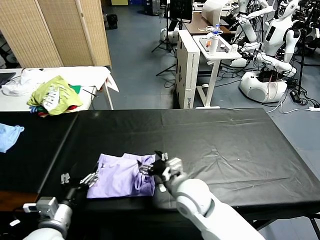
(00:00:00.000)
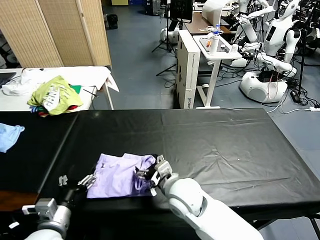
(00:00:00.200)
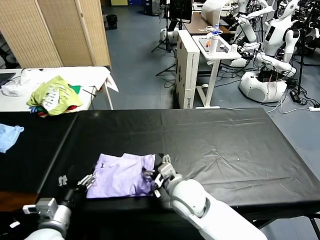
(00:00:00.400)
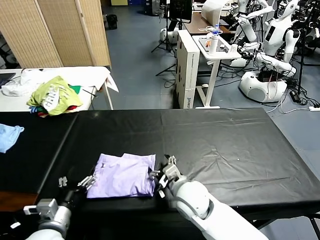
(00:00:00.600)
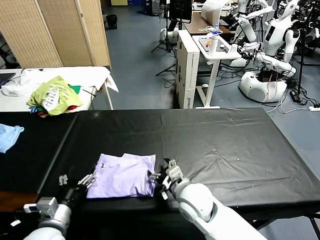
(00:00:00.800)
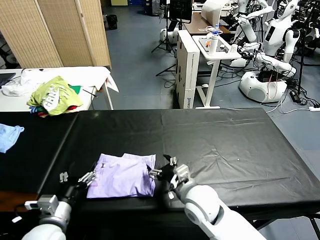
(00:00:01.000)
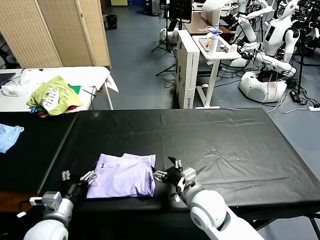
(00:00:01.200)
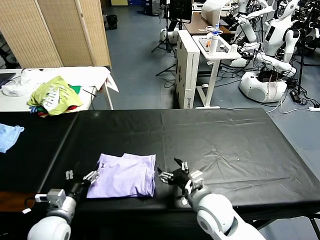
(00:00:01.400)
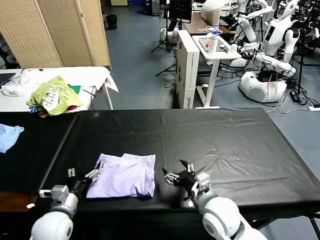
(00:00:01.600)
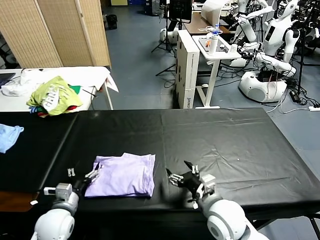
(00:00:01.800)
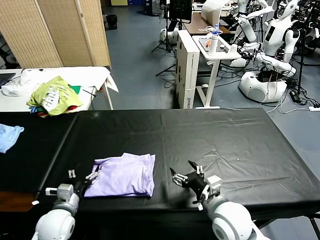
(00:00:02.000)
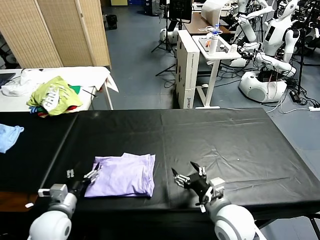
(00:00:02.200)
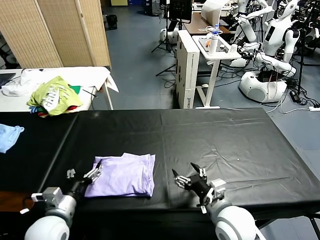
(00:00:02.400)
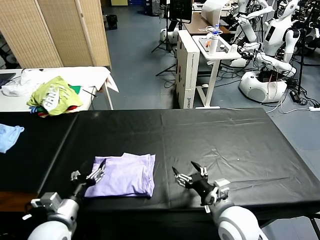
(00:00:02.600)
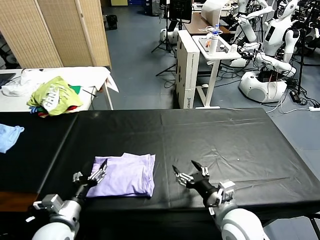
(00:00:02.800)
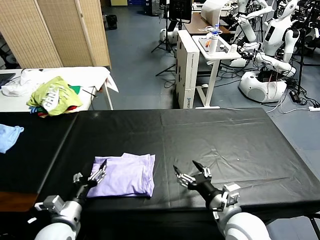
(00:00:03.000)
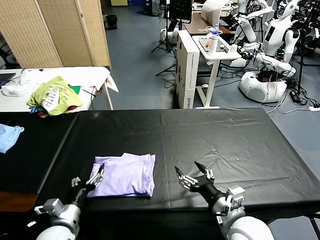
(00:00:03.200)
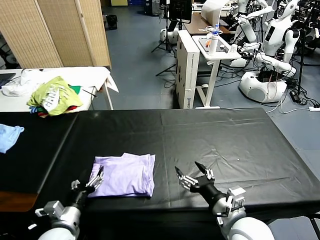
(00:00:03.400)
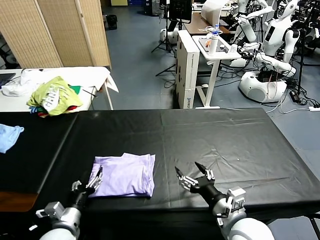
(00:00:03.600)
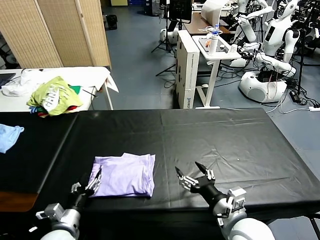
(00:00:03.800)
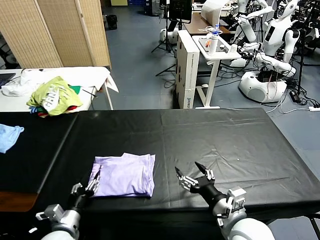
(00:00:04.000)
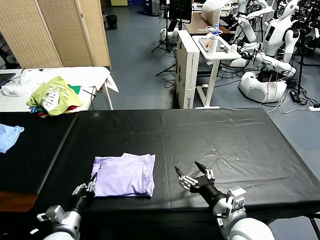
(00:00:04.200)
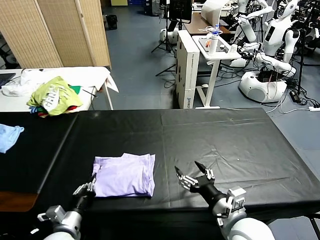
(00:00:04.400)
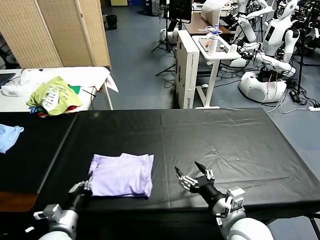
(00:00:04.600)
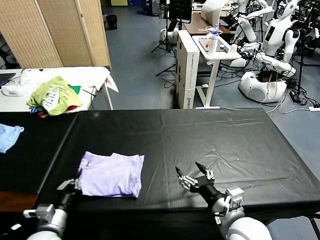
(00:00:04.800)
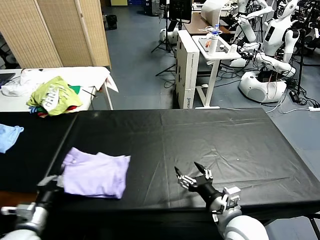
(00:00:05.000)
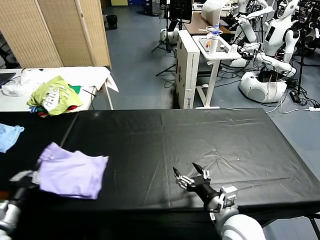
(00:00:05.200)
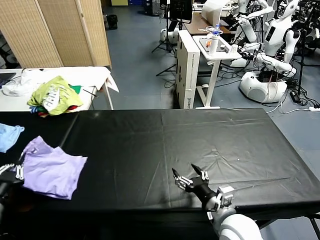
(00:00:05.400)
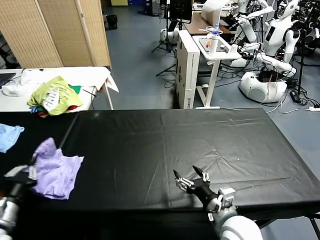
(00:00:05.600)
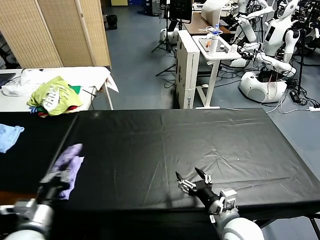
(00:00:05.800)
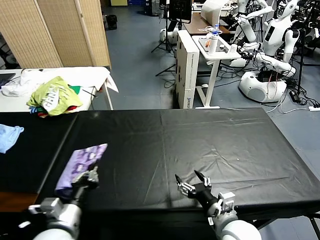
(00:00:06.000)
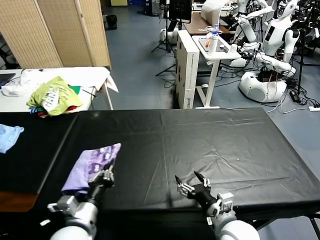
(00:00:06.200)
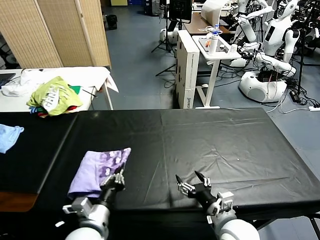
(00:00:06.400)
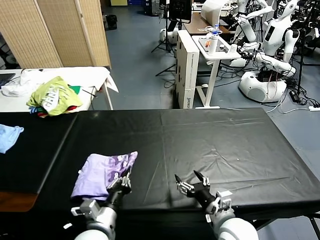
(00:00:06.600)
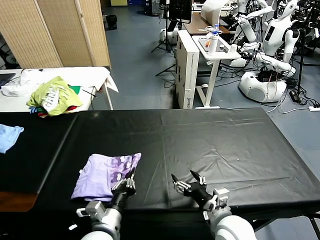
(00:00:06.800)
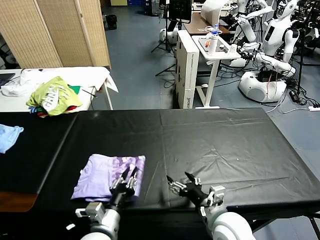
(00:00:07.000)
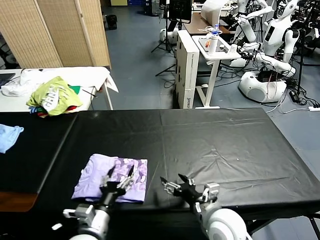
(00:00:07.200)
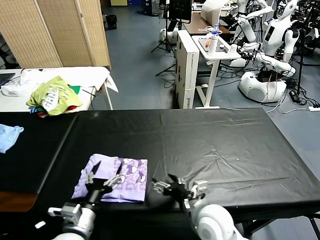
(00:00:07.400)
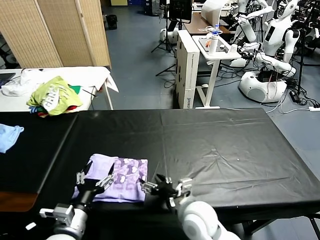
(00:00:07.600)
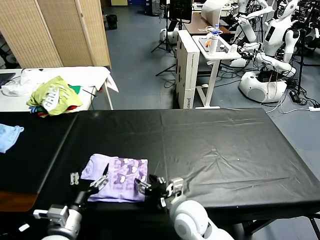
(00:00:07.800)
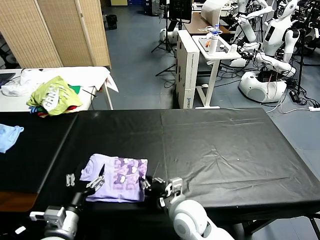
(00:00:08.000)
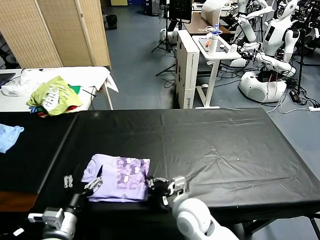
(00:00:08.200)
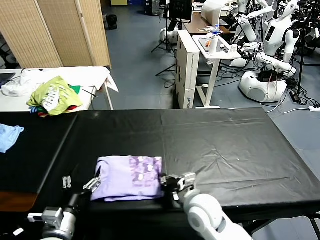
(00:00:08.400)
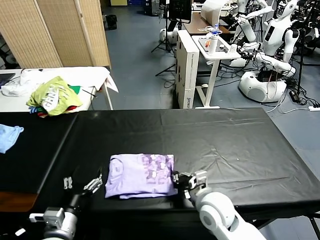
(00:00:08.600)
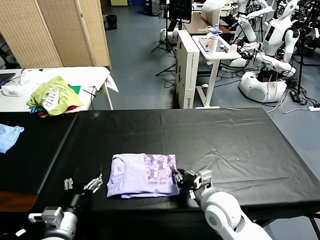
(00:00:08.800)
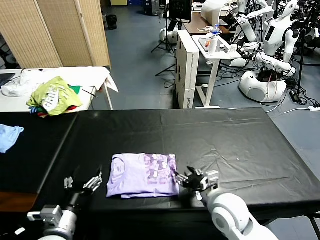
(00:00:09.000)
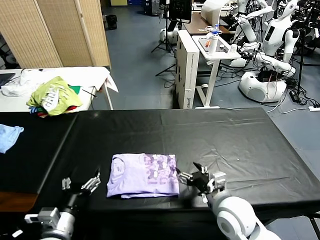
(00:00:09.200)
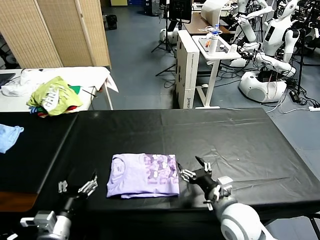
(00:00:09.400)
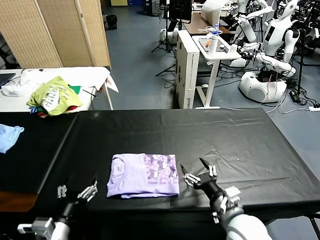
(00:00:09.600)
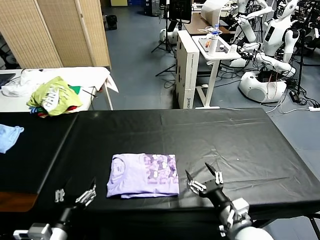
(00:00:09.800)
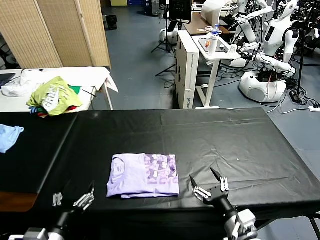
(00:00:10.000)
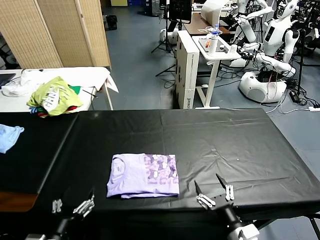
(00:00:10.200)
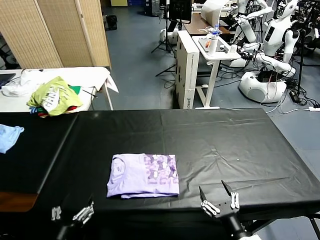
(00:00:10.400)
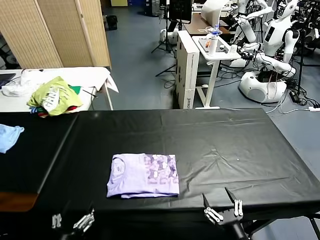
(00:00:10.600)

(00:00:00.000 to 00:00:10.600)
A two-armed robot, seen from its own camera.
Task of the whole recording: fold and organize the clothes.
Step, 00:00:00.000 - 00:00:07.000: Flip the folded clothes over with left gripper.
Step, 00:00:07.400 - 00:00:09.000: Drag the clothes to the center of the table.
00:00:00.000 - 00:00:01.600: The left gripper is displaced downward and forward by about 10 cm. Meanwhile the right gripper goes some 10 cm to the right.
00:00:01.600 - 00:00:03.000: The right gripper moves backward, some 5 cm.
00:00:03.000 - 00:00:04.600: The left gripper closes.
00:00:04.600 - 00:00:06.000: The left gripper goes some 10 cm upward, and moves roughly 15 cm to the left and comes back.
00:00:06.000 - 00:00:07.600: The right gripper shifts roughly 10 cm to the left and forward, while the left gripper reaches some 10 cm to the right, then returns, and opens its fingers.
00:00:07.600 - 00:00:09.000: The right gripper moves to the right, some 5 cm, and closes its fingers.
00:00:09.000 - 00:00:10.600: The right gripper heads backward, covering roughly 15 cm, and opens its fingers. The left gripper travels backward by about 10 cm.
